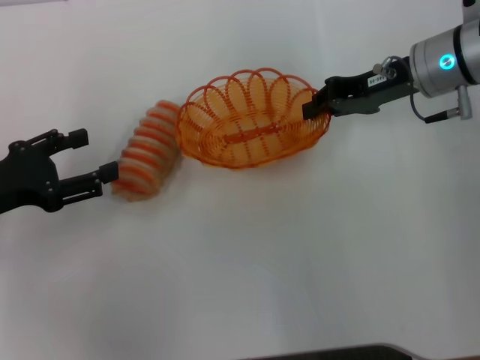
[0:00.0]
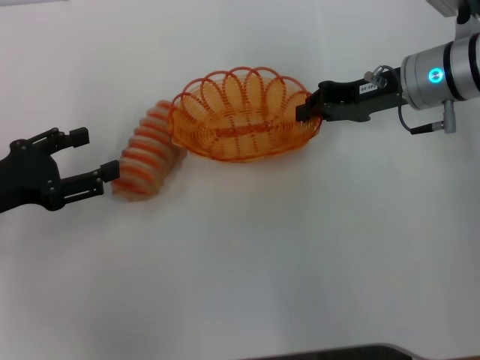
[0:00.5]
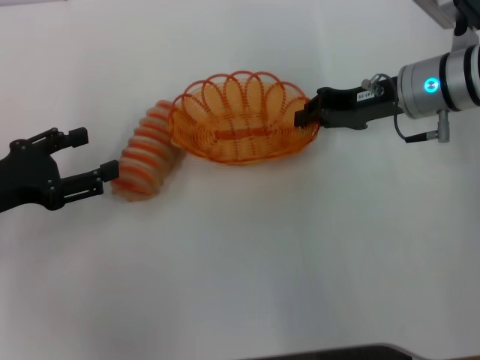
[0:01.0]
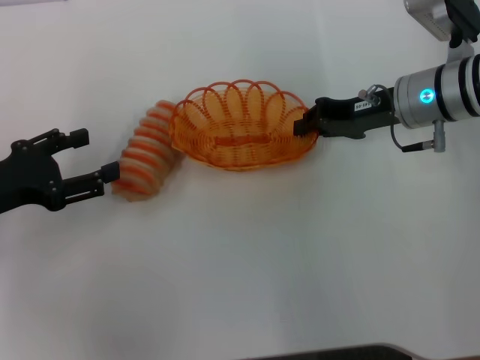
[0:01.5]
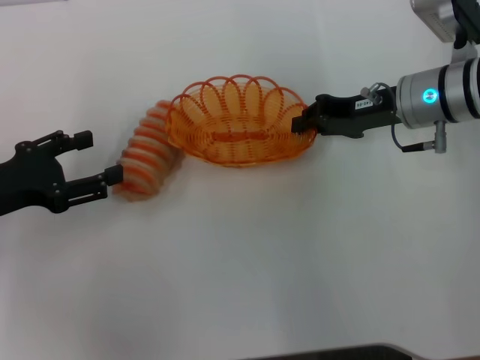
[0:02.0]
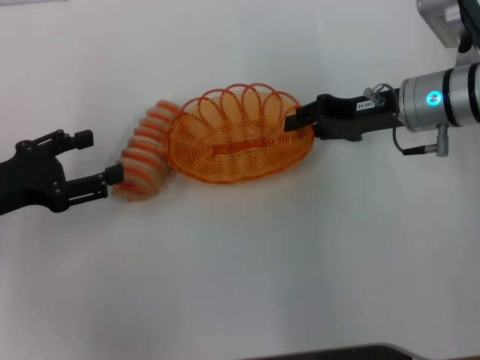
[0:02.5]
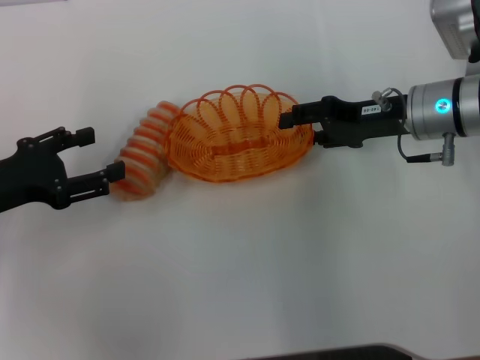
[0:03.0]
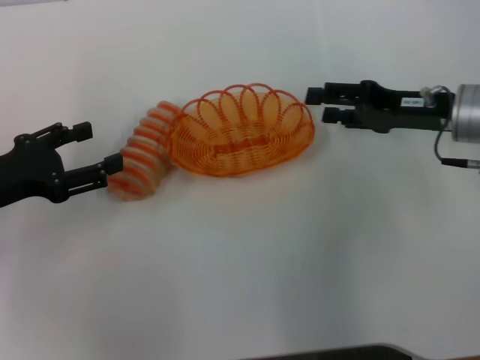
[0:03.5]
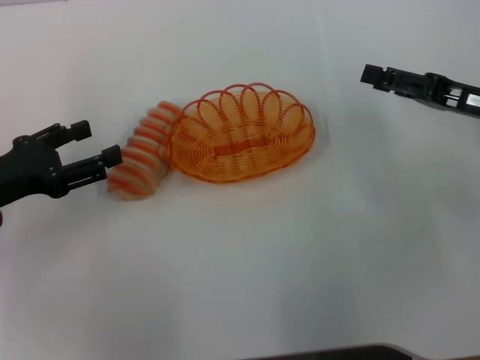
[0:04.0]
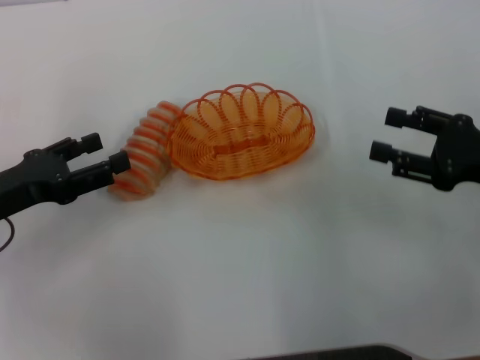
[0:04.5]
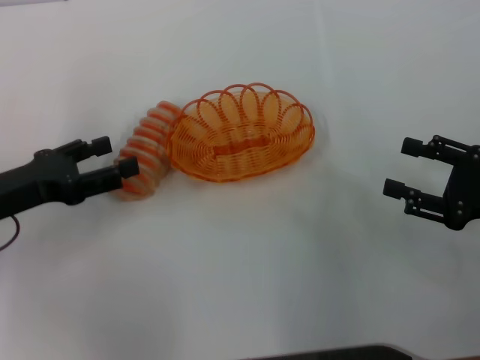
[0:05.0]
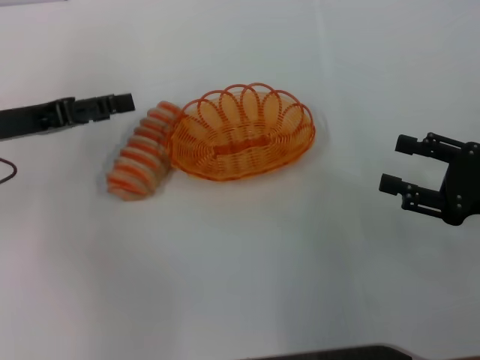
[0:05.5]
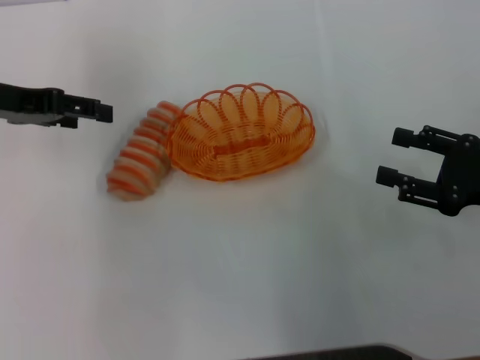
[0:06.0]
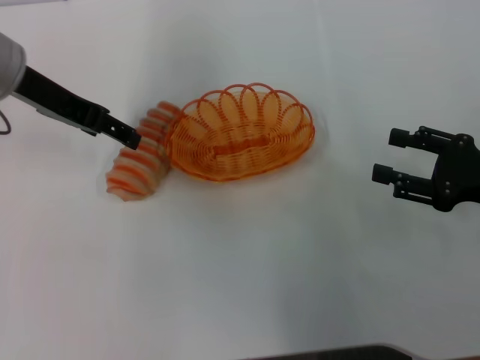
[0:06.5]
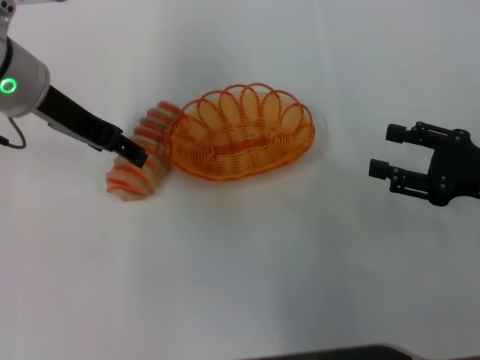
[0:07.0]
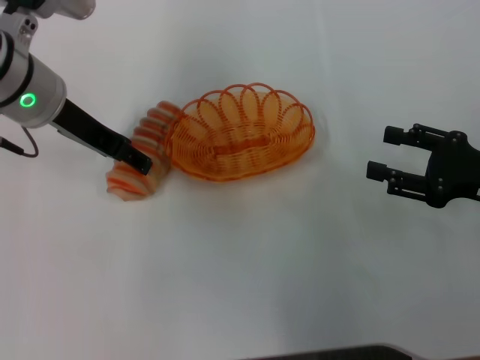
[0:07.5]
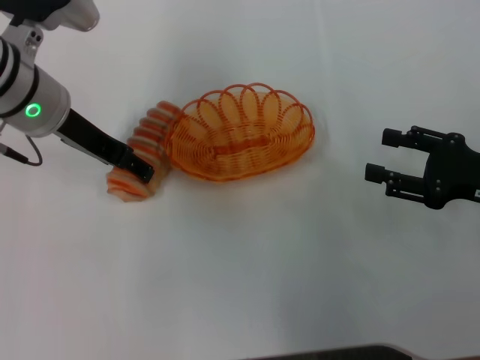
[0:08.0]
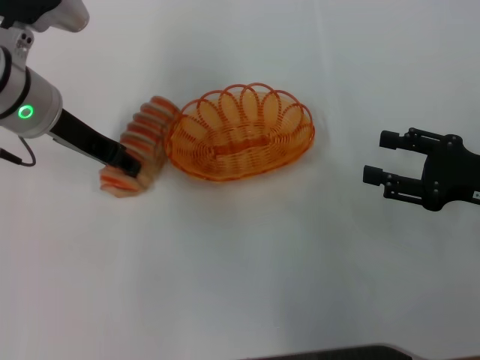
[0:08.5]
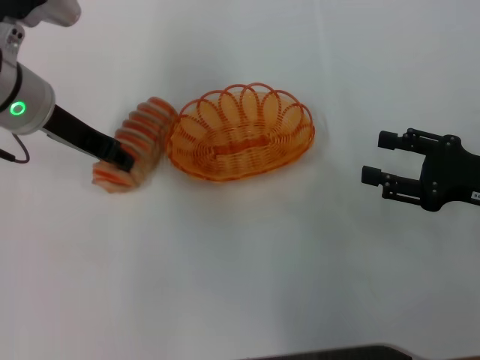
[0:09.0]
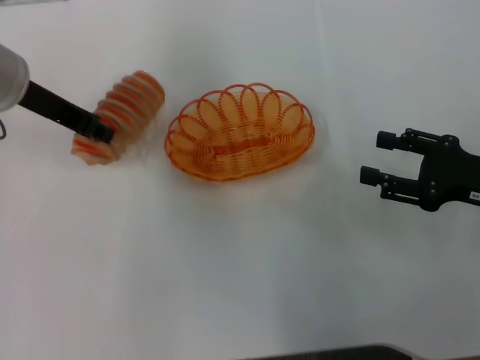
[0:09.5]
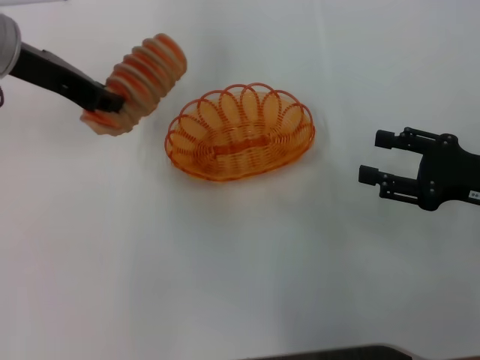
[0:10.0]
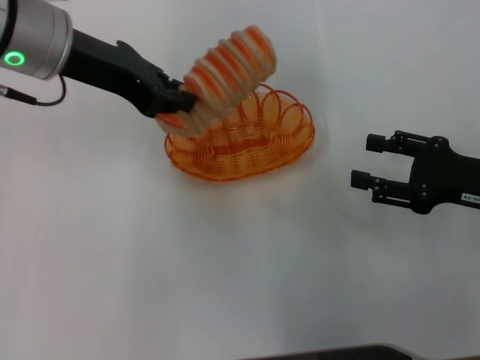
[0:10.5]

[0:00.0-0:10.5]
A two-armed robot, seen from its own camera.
Step, 0:00.0 to 0:03.5: Place the basket in the center of view with the right gripper.
Step, 0:04.0 to 0:09.5: Pick up the long bread with the left gripper.
0:00.0 to 0:02.0: The grippers stay close to where they were, moving slightly.
0:02.0 to 0:04.0: The right gripper is displaced to the right and backward by some 10 cm, and opens its fingers.
0:04.0 to 0:06.5: The left gripper heads forward, upward and to the right, covering some 20 cm. The right gripper goes some 5 cm backward.
0:06.5 to 0:08.5: The grippers stay close to where they were, moving slightly.
0:08.5 to 0:10.5: The left gripper shifts some 5 cm upward, and closes.

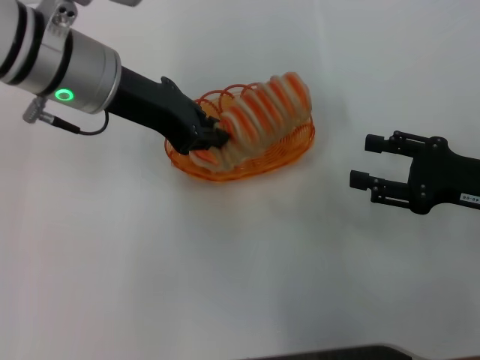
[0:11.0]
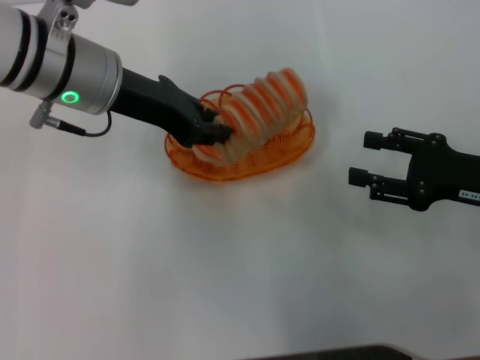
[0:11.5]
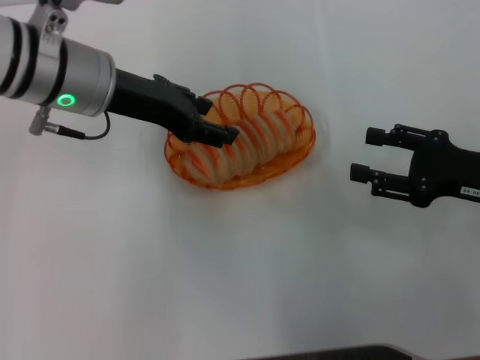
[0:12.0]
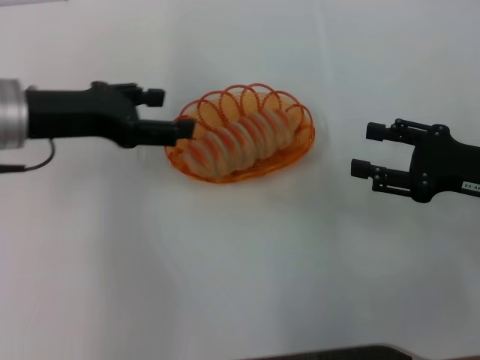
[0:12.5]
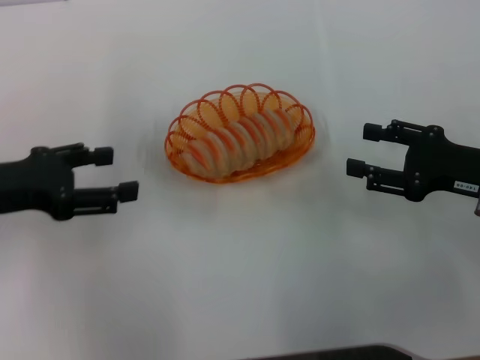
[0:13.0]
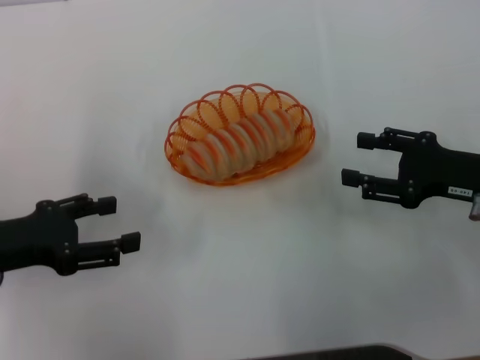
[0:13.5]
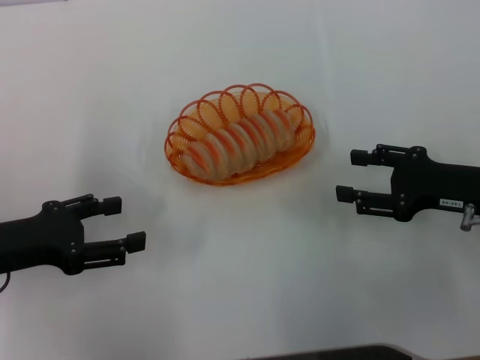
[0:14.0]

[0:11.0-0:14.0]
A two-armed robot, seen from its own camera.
0:11.0 to 0:12.5: The left gripper moves to the left, some 10 cm, and opens its fingers.
0:12.5 to 0:14.0: The left gripper moves backward, downward and to the left, approximately 15 cm.

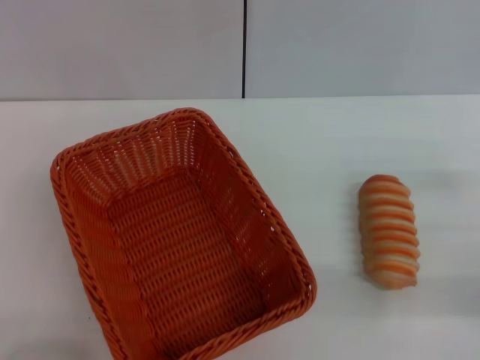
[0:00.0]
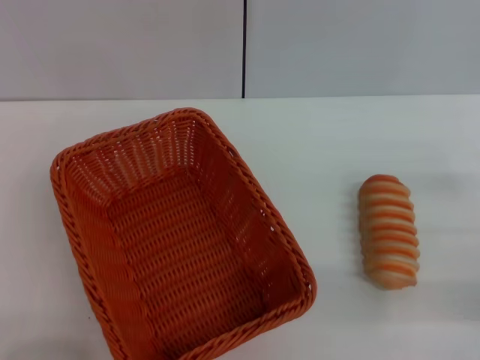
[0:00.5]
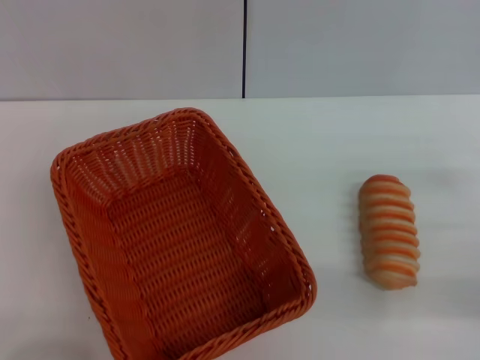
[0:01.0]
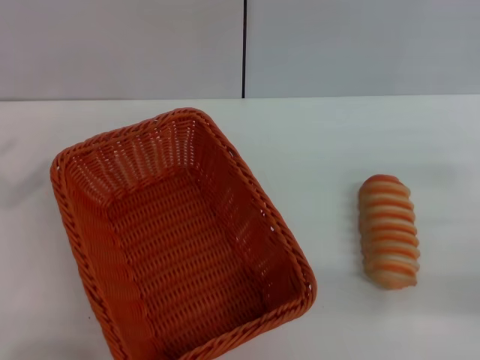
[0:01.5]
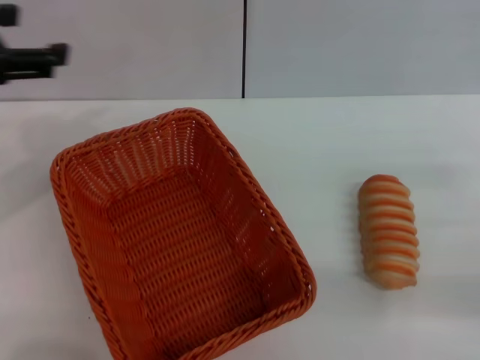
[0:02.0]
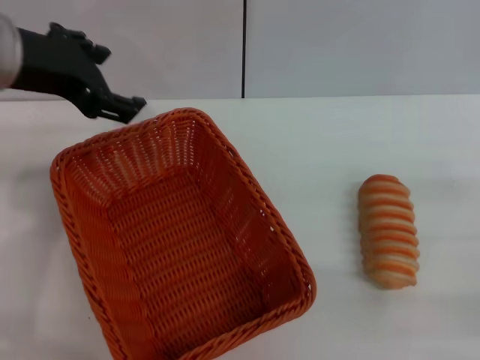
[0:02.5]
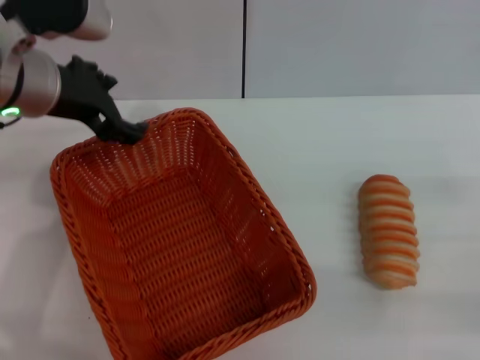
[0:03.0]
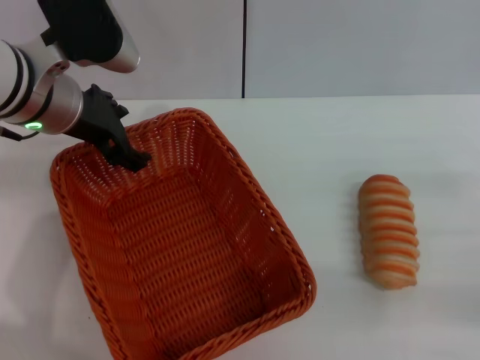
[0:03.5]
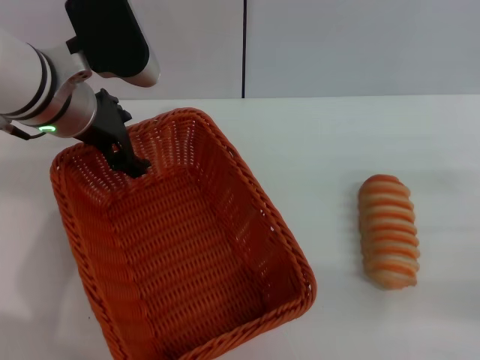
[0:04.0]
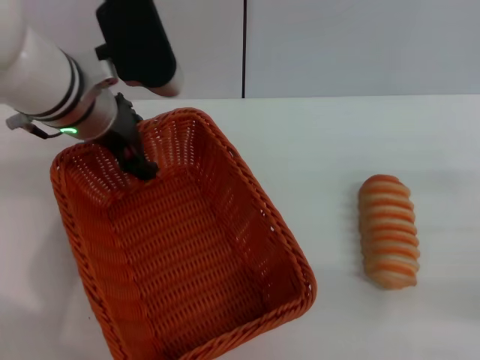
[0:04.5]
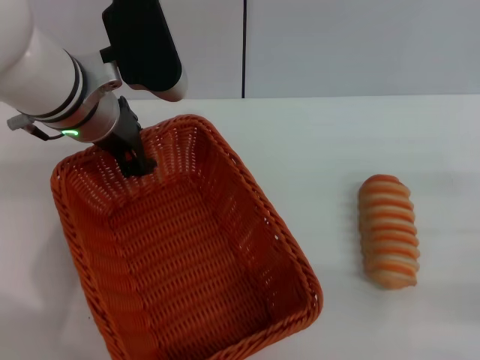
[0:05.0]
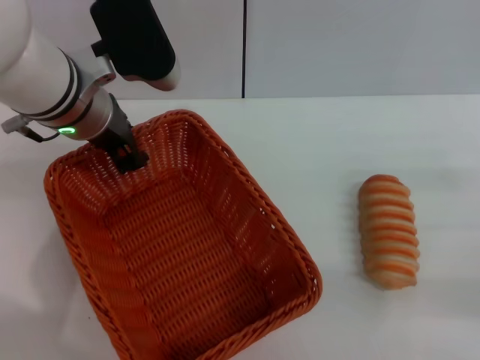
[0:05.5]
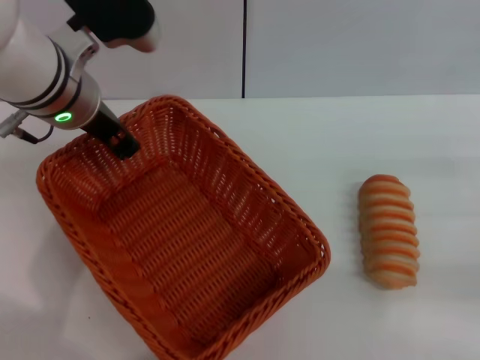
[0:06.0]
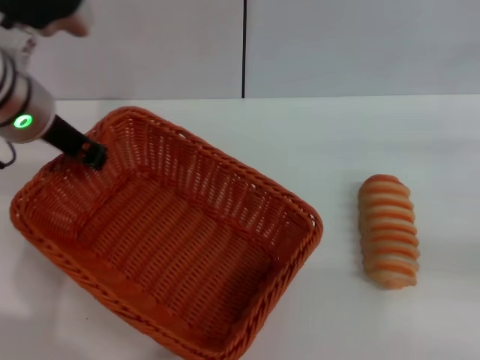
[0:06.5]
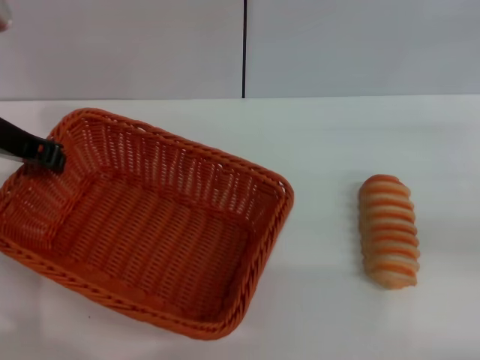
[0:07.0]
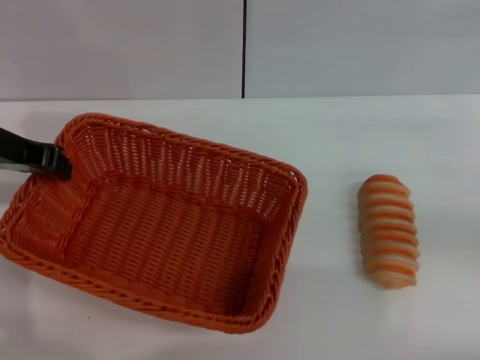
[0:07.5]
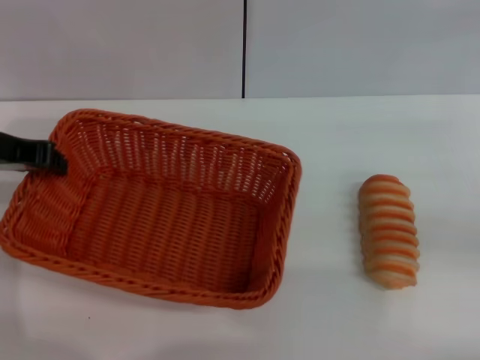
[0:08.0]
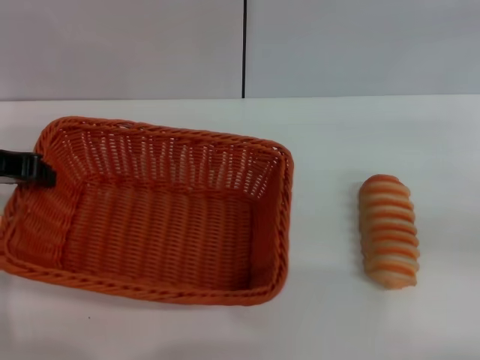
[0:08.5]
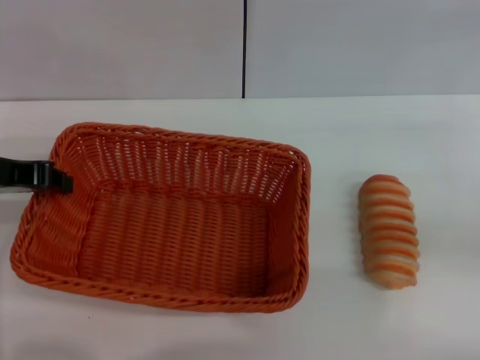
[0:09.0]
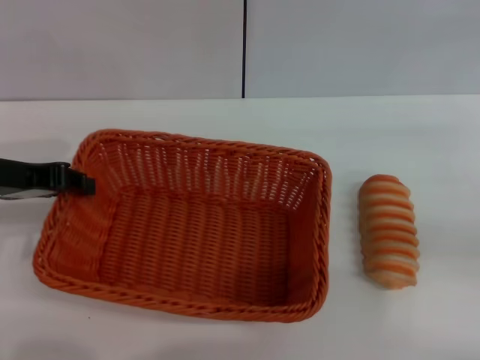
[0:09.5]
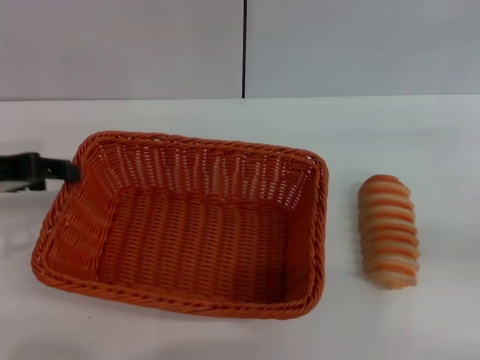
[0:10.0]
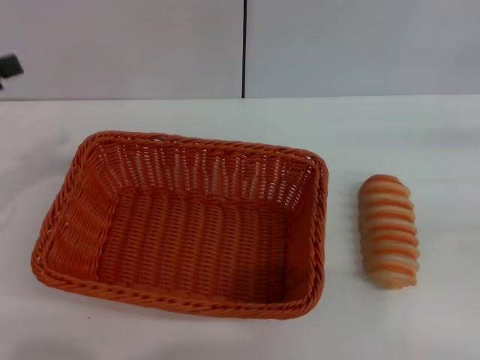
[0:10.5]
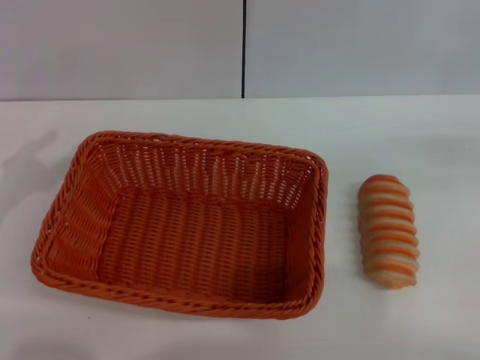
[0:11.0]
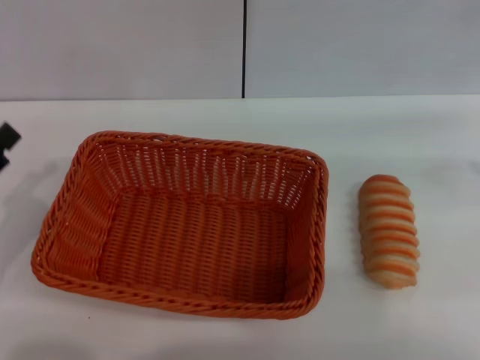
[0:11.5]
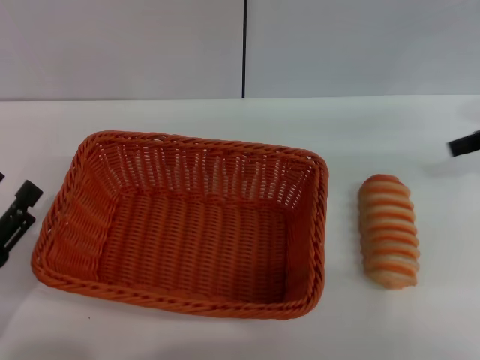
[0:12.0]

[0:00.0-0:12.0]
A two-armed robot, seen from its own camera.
Step, 0:00.0 to 0:06.5: Pick up the light basket with the left gripper.
Step, 0:07.0 to 0:10.0: Place the light basket in the center of view with the left gripper.
0:00.0 to 0:02.0: The left gripper travels upward and forward by some 30 cm.
0:02.0 to 0:04.0: The left gripper is displaced to the right, downward and forward by approximately 15 cm.
0:04.0 to 0:06.0: The left gripper closes its fingers.
0:06.0 to 0:08.0: The right gripper is displaced forward by some 5 cm, while the left gripper goes approximately 10 cm to the left.
0:08.0 to 0:10.0: The left gripper opens its fingers.
0:10.0 to 0:12.0: The left gripper shifts about 20 cm backward and downward, and opens.
